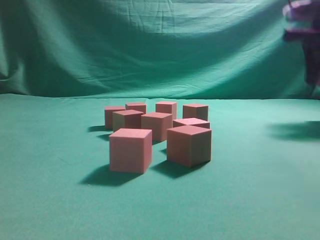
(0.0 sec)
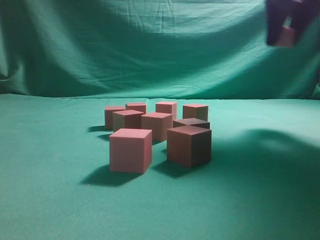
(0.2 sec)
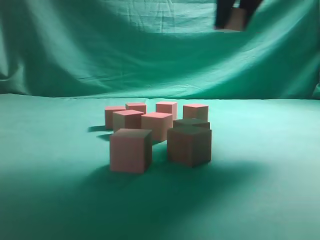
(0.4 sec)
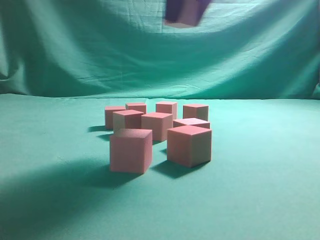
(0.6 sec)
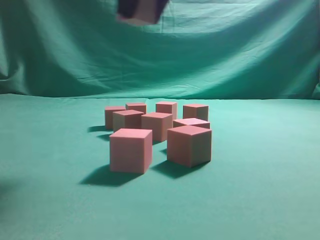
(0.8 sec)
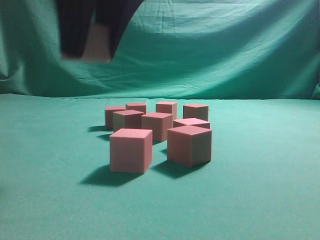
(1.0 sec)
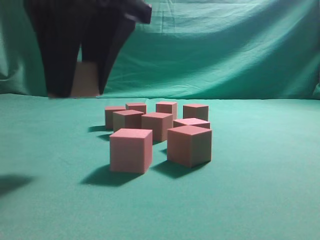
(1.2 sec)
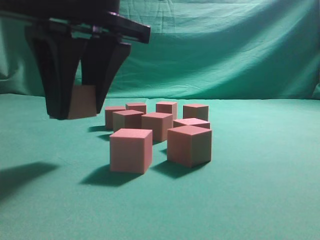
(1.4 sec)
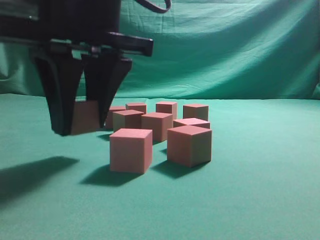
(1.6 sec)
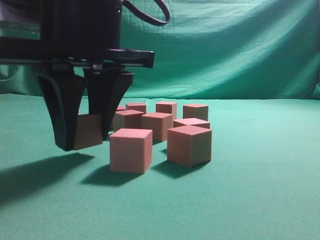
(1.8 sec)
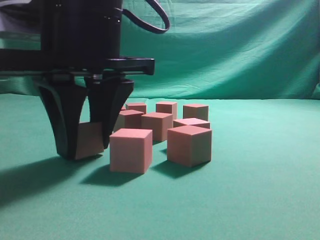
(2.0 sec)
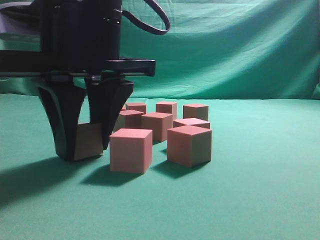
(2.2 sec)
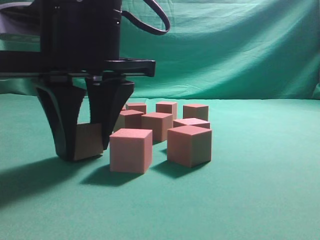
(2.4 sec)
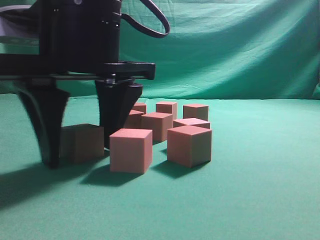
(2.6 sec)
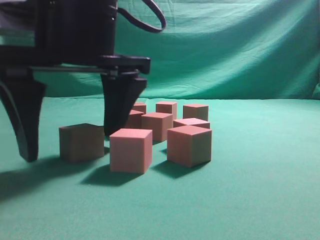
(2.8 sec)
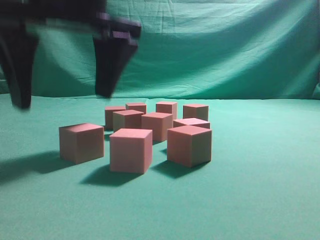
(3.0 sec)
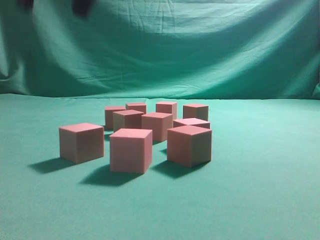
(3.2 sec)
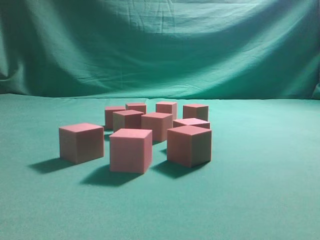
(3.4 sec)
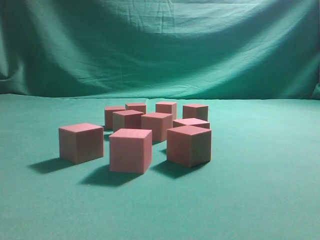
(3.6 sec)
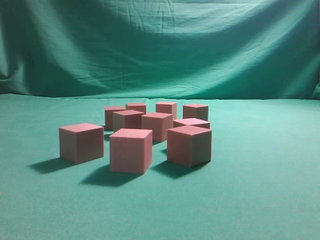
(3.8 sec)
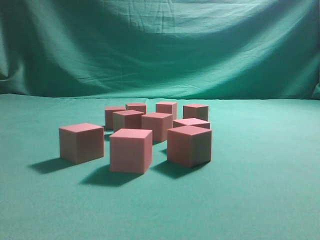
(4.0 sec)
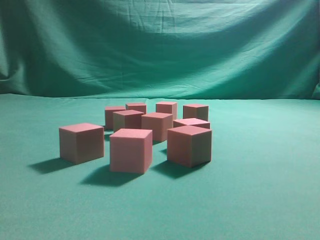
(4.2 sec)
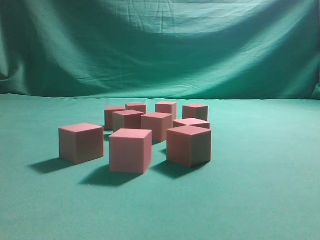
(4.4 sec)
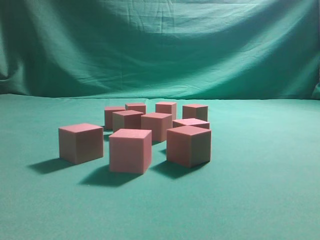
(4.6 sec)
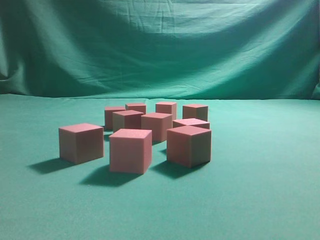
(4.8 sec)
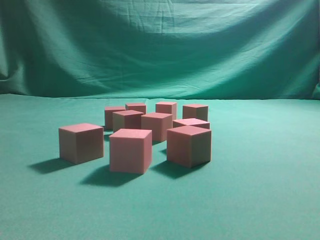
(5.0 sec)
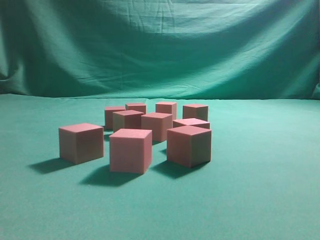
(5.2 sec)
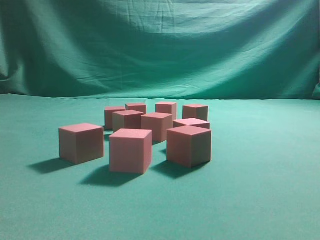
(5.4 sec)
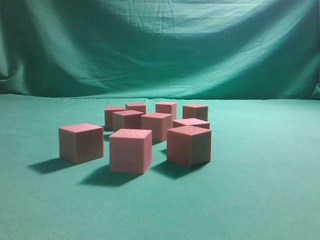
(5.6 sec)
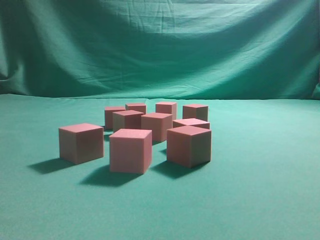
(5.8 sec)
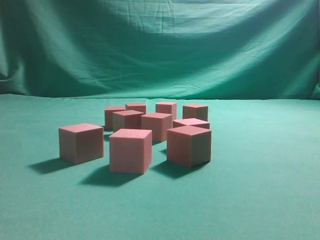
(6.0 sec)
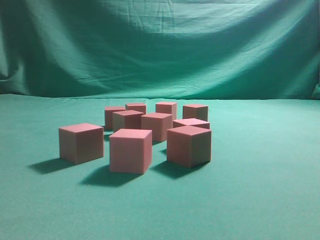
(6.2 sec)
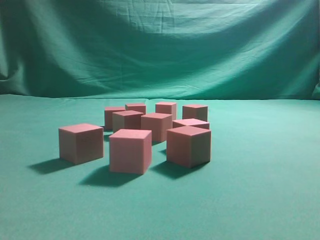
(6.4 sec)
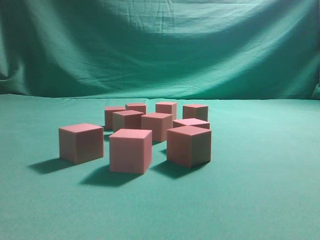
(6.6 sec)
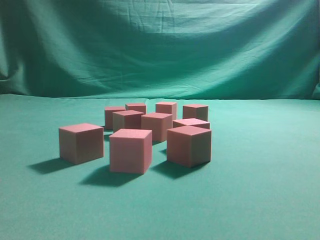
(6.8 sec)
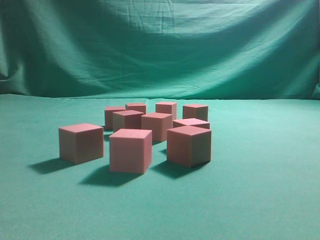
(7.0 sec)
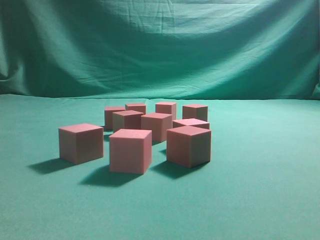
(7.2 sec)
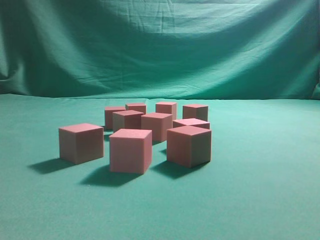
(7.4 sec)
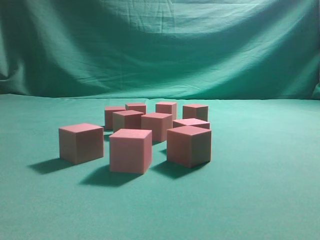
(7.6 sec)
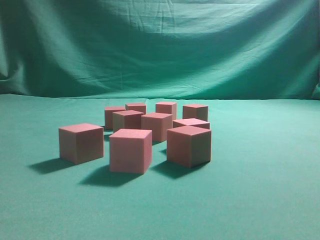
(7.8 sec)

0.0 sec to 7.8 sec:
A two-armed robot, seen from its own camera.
Task of the whole recording: pick up the multiple cubes in two columns one by one and place them in another position on the table.
Step, 0.2 sec to 3.0 sec: Place the block at the correct position to assemble the letter S.
0.0 sec to 1.6 sec: The right gripper shifts some 40 cm to the left and backward.
1.6 sec to 3.2 sec: The right gripper heads upward, covering some 10 cm.
